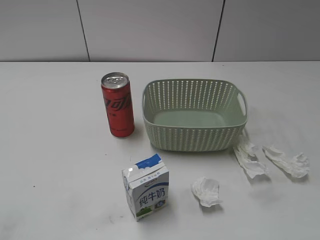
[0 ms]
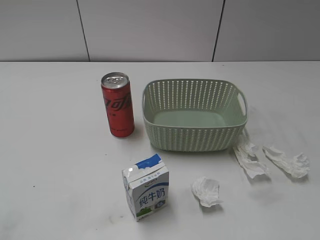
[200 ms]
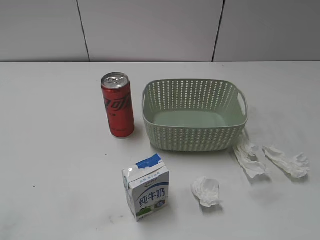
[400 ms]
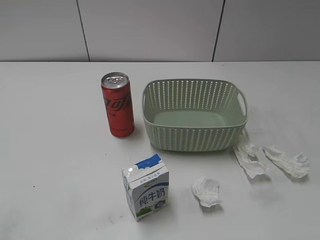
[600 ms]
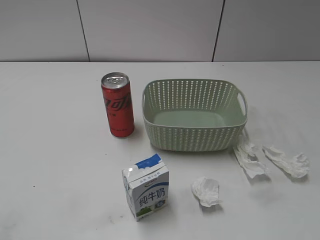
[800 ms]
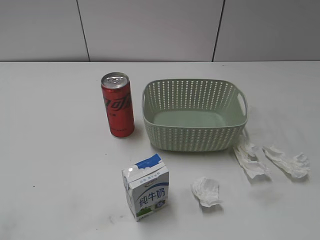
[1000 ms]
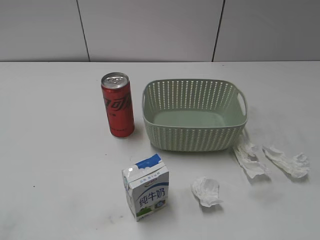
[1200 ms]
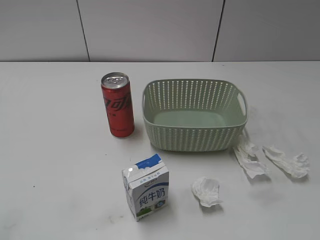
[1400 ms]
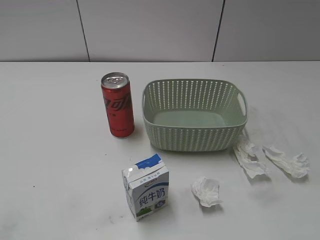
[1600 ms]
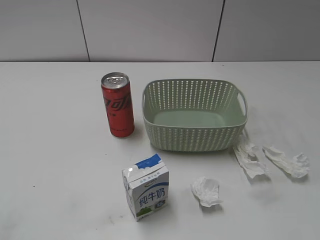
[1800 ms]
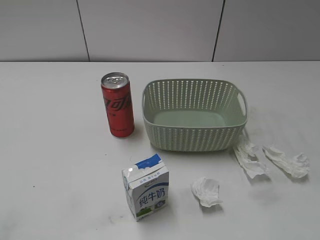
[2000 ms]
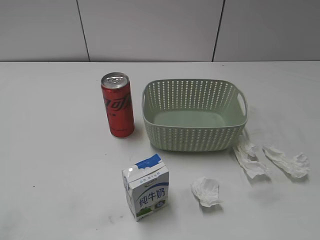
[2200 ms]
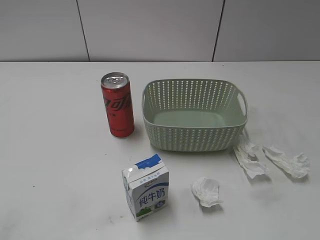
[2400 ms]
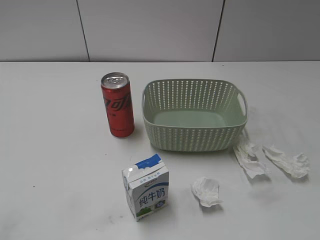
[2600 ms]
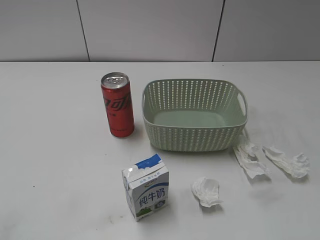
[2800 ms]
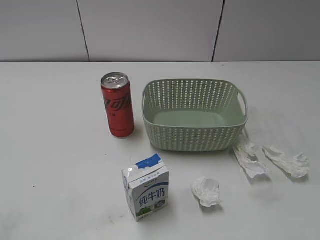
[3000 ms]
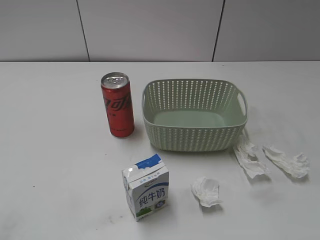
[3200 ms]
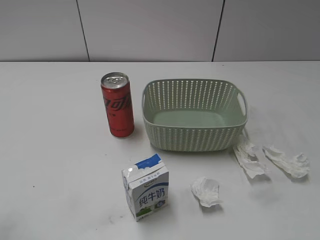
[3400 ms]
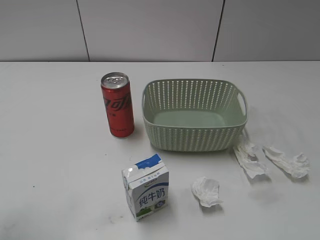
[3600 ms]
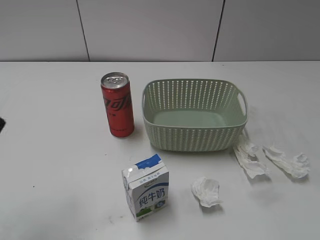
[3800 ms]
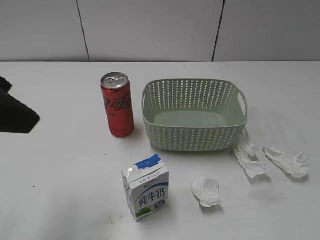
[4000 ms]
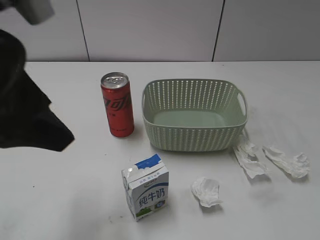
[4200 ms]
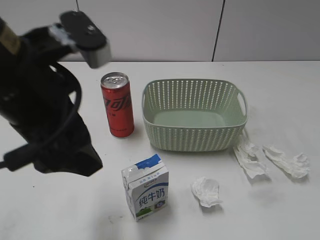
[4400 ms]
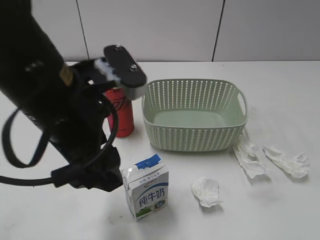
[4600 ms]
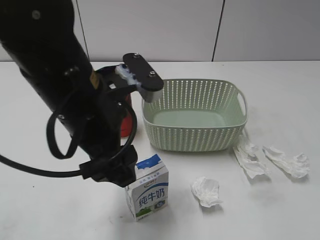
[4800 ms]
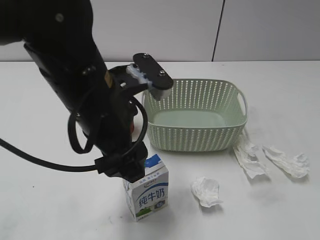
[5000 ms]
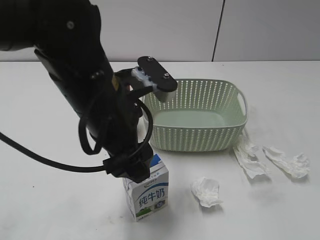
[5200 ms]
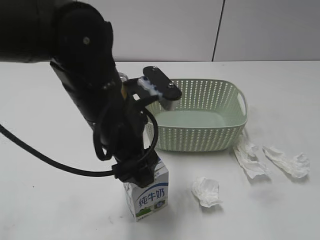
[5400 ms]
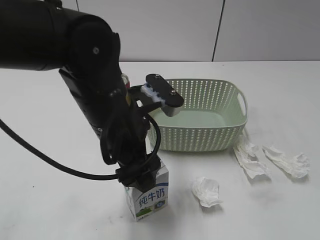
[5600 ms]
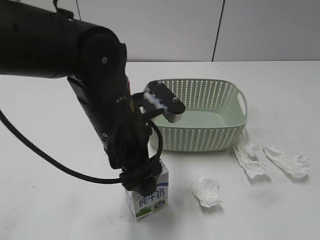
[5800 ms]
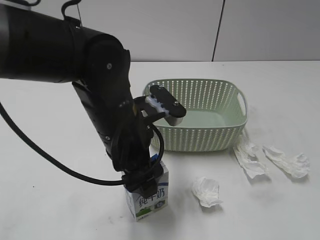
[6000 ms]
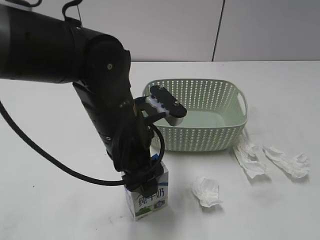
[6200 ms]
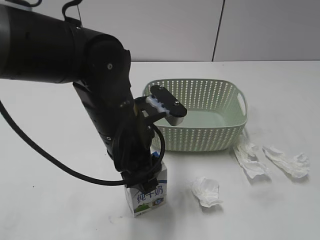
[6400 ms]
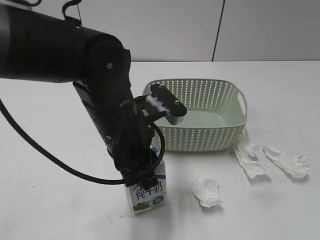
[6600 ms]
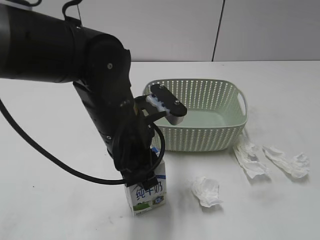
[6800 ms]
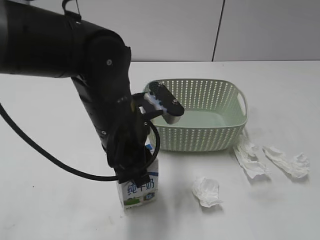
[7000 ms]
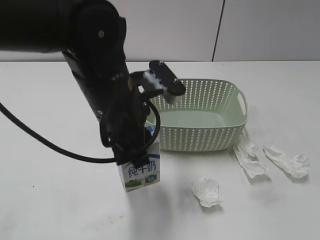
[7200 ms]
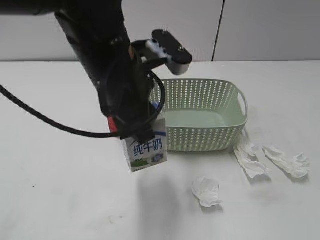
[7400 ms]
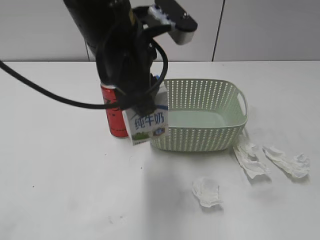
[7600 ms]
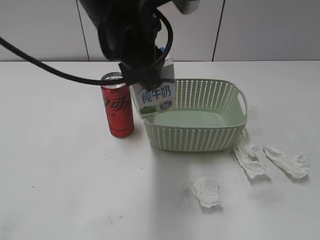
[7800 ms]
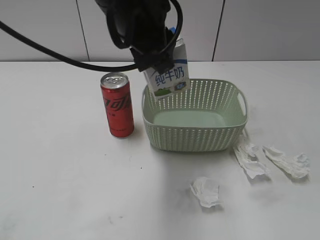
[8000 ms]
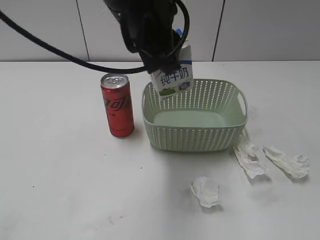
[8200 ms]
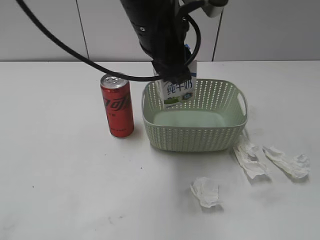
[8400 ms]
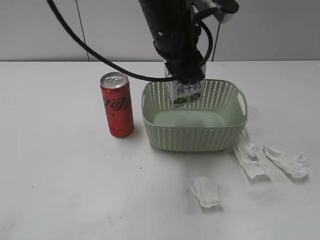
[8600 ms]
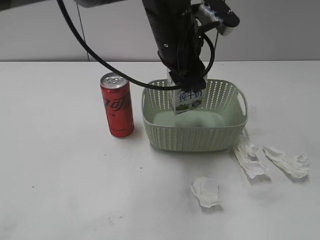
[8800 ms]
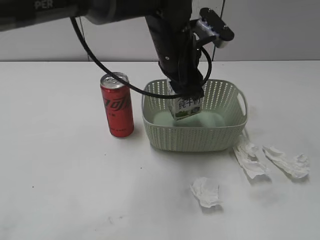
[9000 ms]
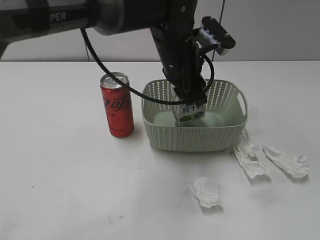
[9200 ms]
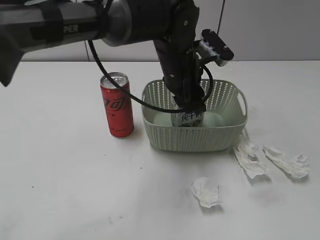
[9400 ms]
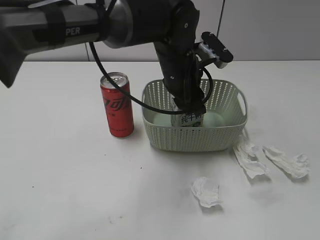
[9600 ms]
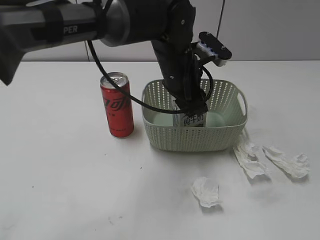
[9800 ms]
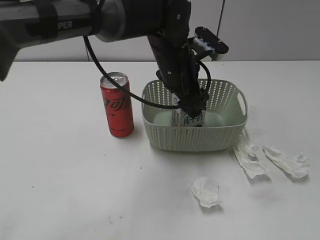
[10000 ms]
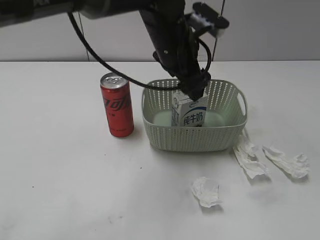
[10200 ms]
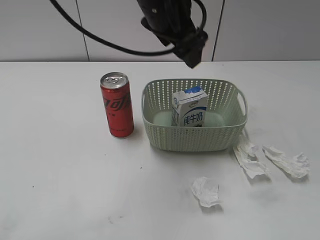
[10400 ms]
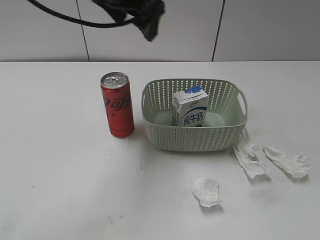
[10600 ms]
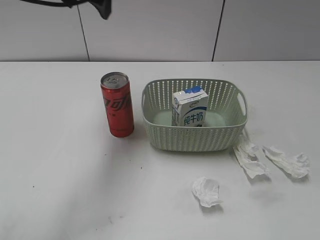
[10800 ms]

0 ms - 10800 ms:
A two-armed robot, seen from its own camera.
Step, 3800 ms - 6600 ms: Grasp the milk with left gripper.
Step, 6800 ms - 10400 ms: Place the milk in the basket with left gripper.
3000 ms - 4600 ms: The left gripper moves to the right and forward, about 30 cm.
4600 ms - 6200 ms: The left gripper shifts about 10 cm downward and to the right.
6200 ms - 7800 ms: The left gripper heads upward, covering some 15 cm, and closes.
7800 ms - 9200 ms: The left gripper goes roughly 15 cm downward, forward and to the right.
9200 ms - 10800 ms: The left gripper moves to the left and upward, approximately 20 cm, and opens up.

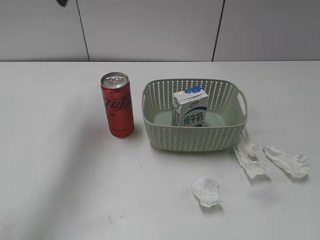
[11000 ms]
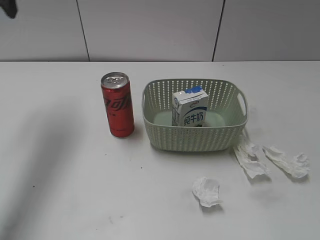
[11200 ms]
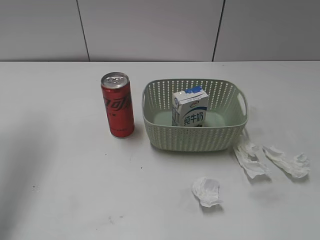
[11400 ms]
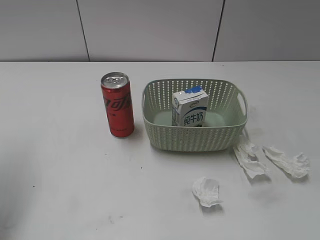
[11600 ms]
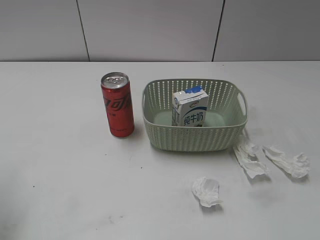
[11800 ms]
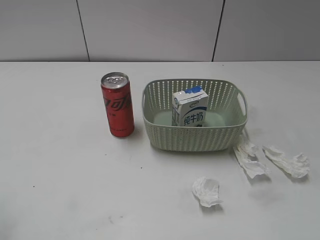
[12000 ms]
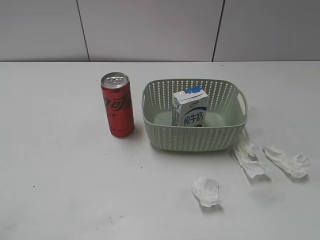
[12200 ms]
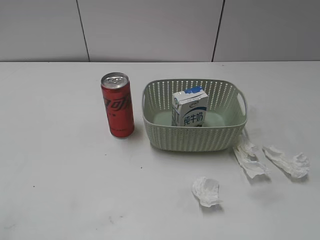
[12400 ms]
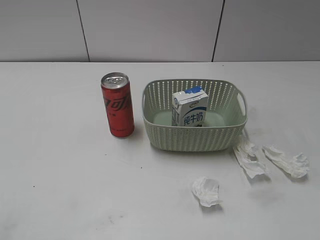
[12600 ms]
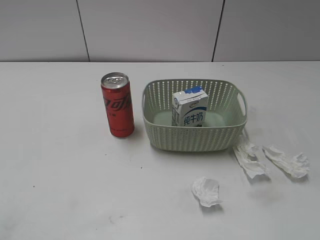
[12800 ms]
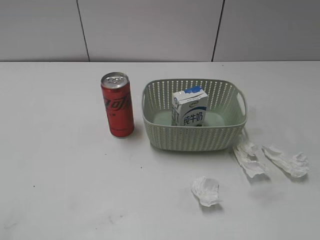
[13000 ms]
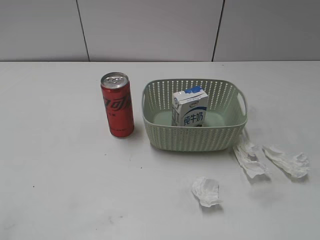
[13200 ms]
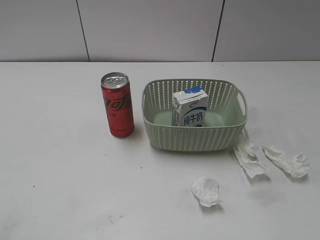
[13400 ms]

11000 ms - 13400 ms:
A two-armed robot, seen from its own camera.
11000 ms - 12200 ms: The left gripper shifts about 35 cm backward and to the left.

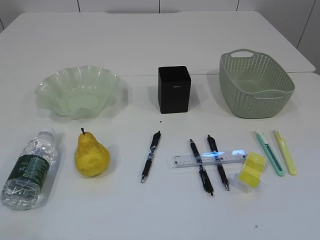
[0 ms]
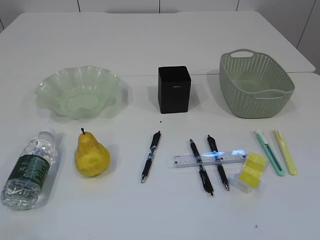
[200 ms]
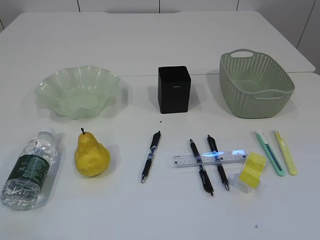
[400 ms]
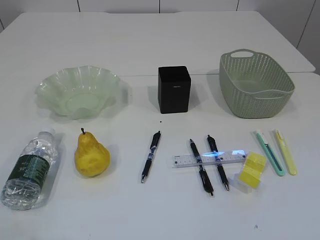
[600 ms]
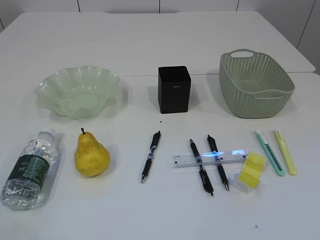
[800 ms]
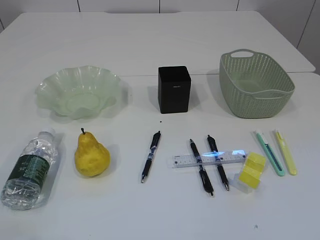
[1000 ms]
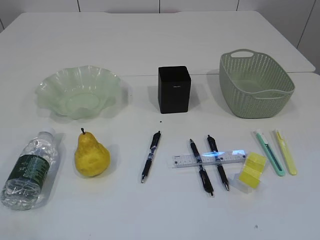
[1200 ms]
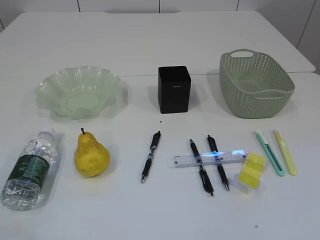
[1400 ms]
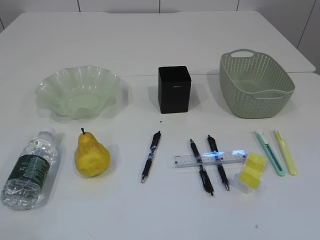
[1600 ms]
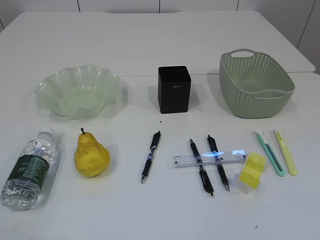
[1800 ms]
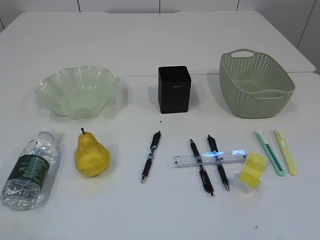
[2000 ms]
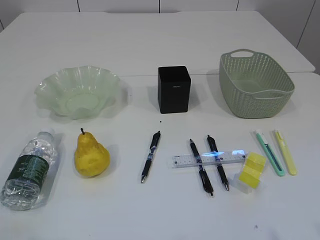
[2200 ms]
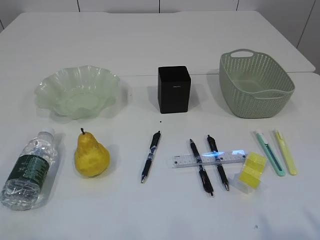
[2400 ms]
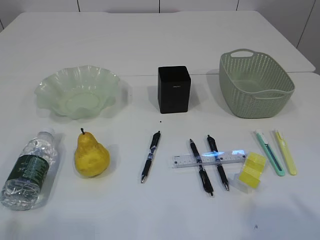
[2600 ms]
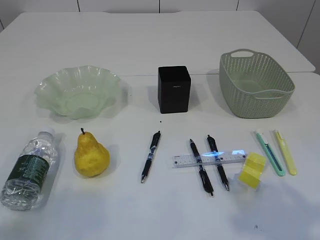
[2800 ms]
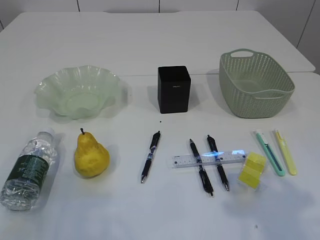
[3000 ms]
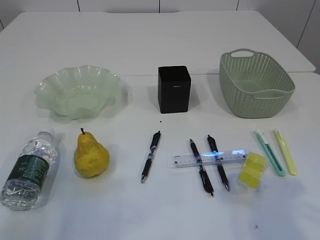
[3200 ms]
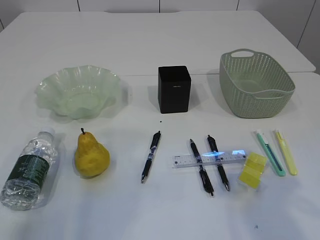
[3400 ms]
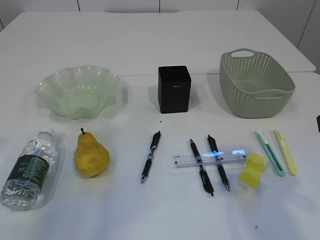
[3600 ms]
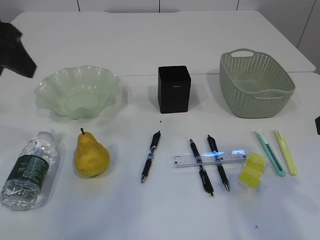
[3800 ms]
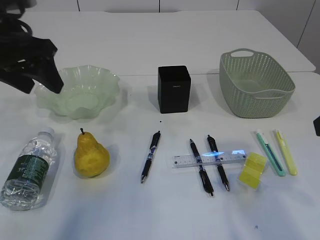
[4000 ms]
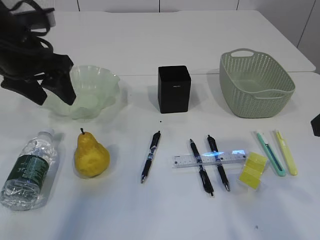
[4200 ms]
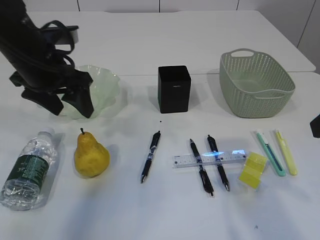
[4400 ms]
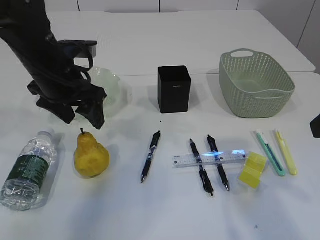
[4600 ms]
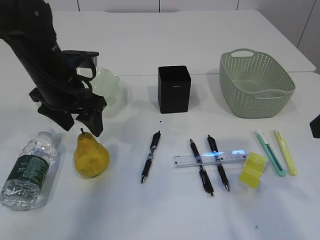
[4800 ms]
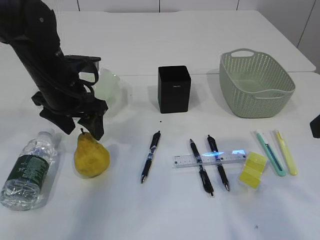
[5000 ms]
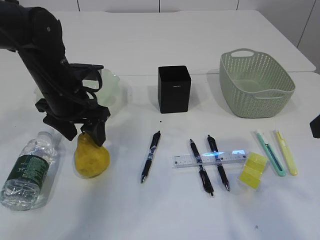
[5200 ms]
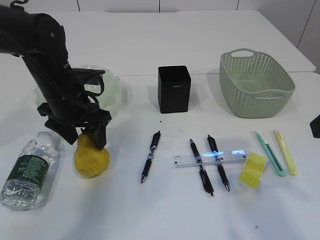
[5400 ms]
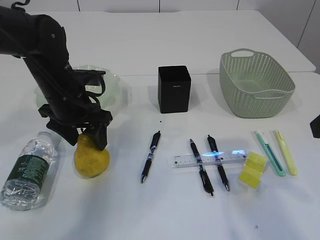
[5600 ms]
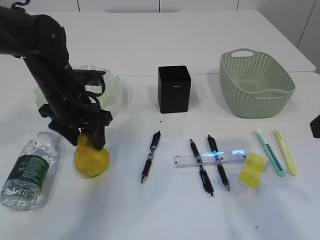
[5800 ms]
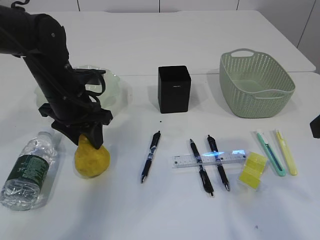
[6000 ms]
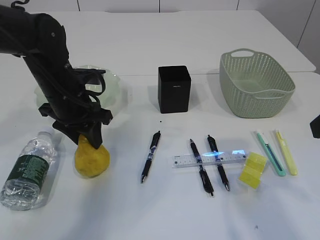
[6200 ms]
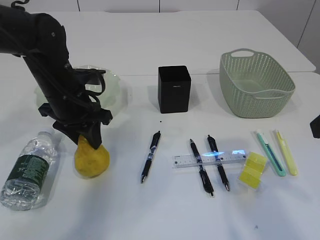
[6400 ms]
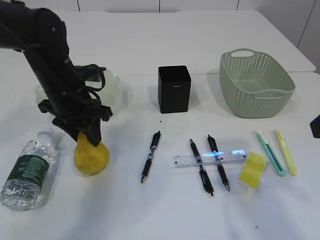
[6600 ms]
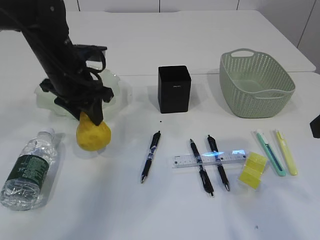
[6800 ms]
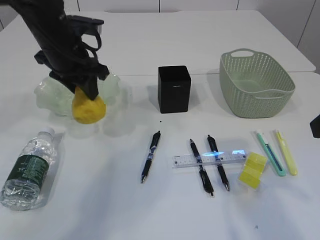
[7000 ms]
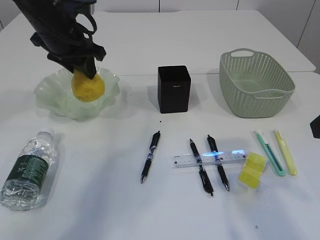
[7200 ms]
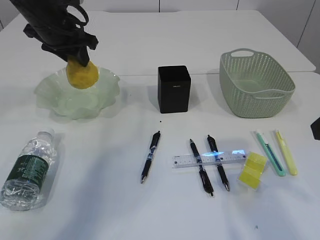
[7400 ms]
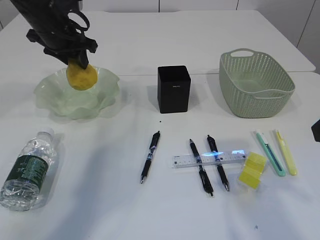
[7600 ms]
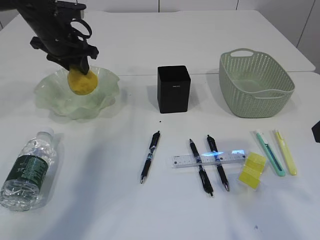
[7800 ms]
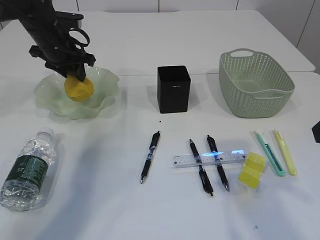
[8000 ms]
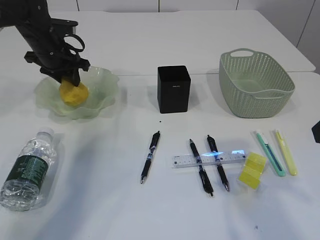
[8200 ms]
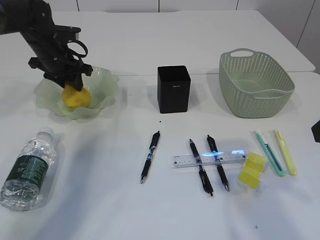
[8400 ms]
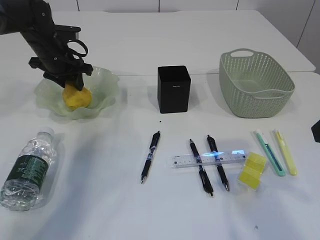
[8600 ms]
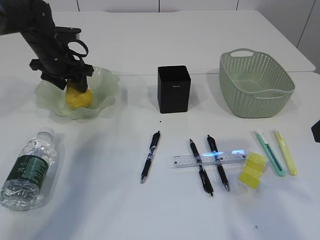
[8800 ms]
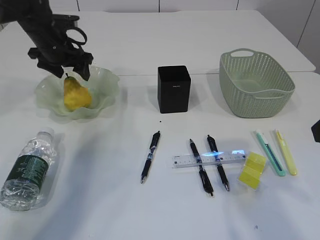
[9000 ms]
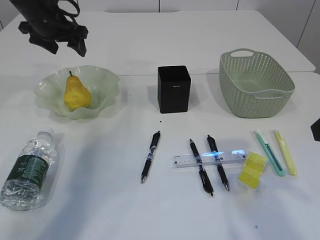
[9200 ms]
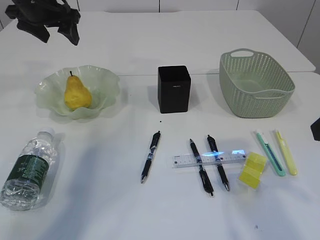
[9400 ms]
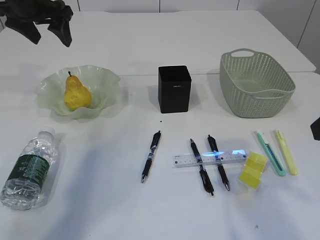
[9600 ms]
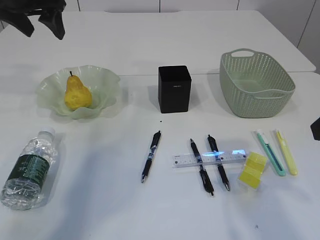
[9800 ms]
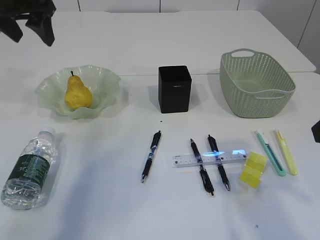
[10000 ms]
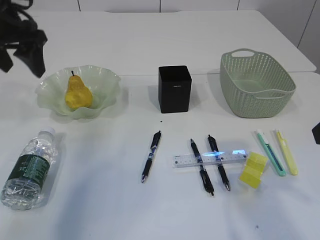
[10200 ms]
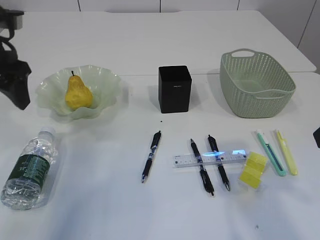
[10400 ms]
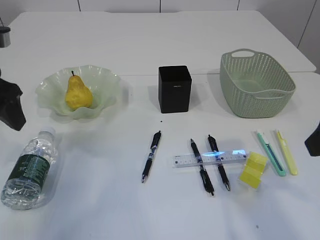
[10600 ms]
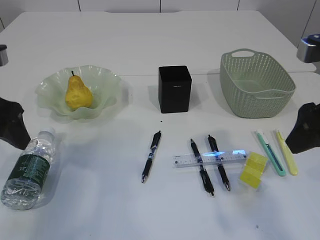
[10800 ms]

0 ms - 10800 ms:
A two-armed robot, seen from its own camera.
Step, 6800 ms - 9000 ms: Place the pear in the plate.
1600 ms - 3000 ms: The two grippers go approximately 10 cm forward.
3000 ms - 4600 ms: The right gripper is displaced forward by approximately 5 cm. Meanwhile the left gripper travels forward and to the right by roughly 30 cm.
4600 ms - 6200 ms: The left gripper travels downward by about 5 cm, and closes up.
6200 ms - 7800 ms: The left gripper goes roughly 15 cm forward and upward.
7800 ms - 9200 ms: The left gripper moves approximately 5 cm downward and comes back, and opens its fingers.
9200 ms - 10800 ms: The left gripper goes approximately 25 cm backward.
